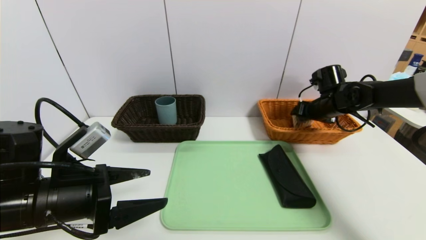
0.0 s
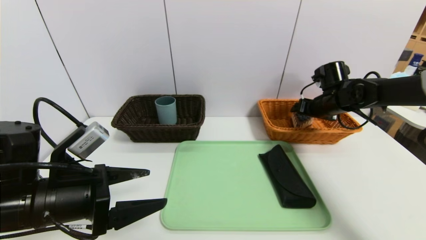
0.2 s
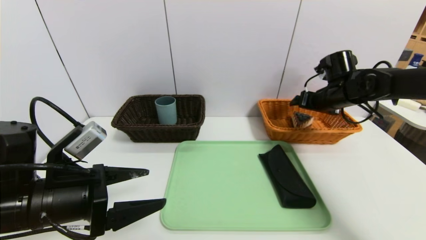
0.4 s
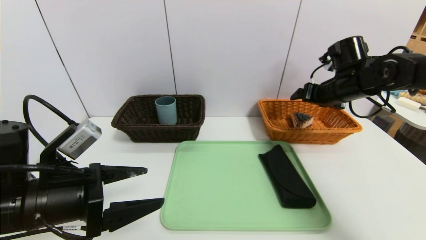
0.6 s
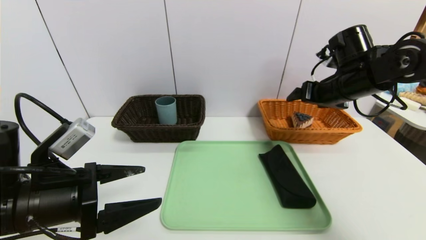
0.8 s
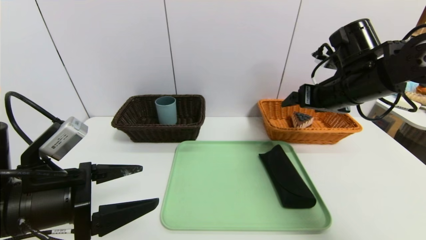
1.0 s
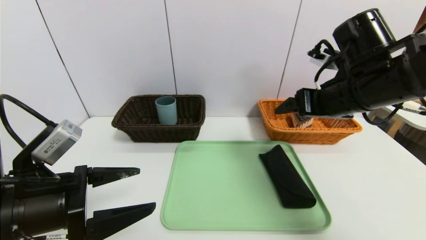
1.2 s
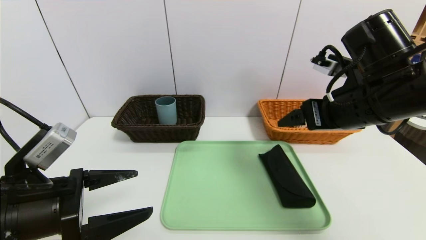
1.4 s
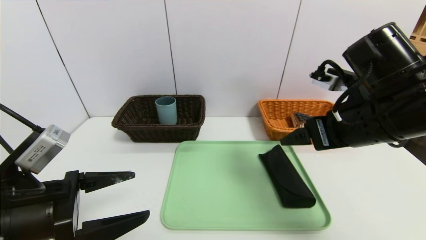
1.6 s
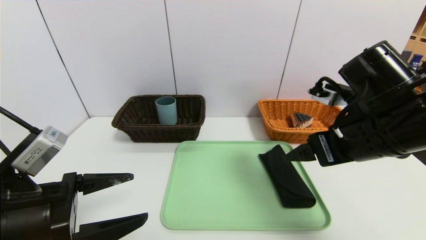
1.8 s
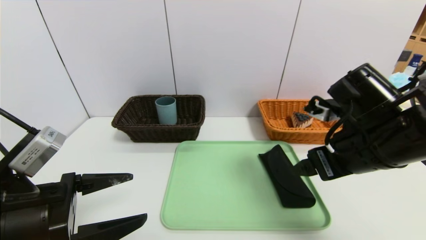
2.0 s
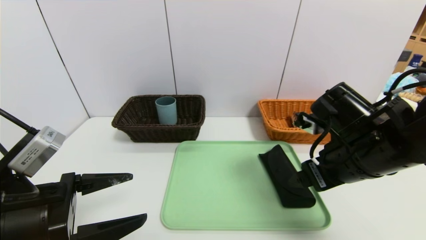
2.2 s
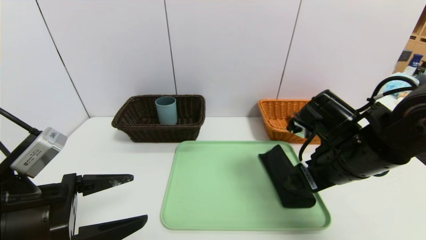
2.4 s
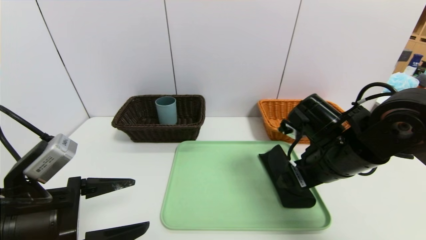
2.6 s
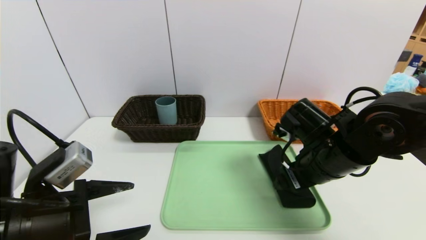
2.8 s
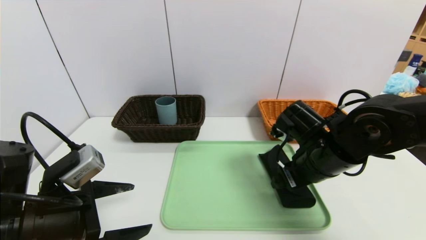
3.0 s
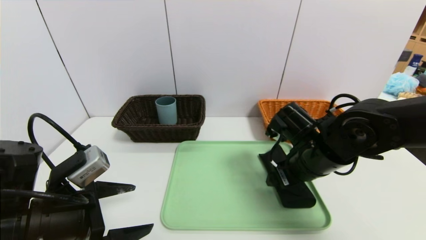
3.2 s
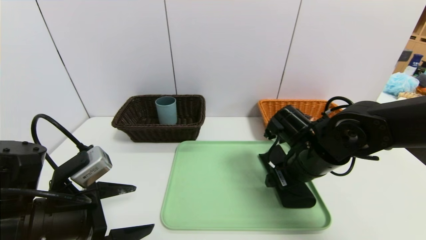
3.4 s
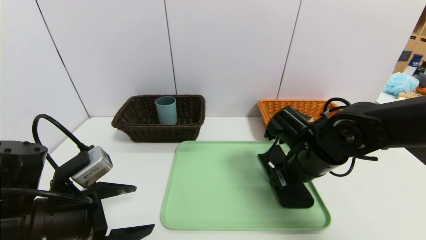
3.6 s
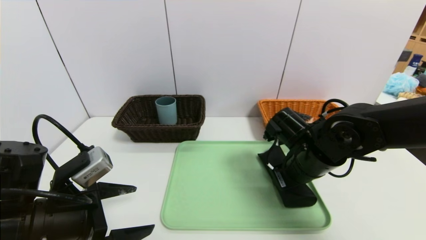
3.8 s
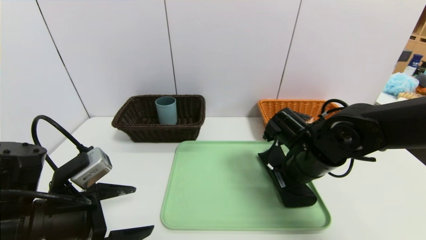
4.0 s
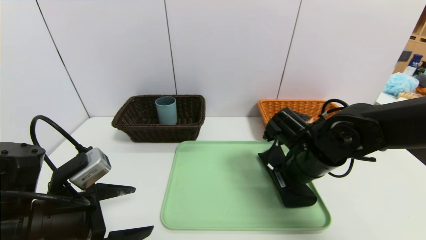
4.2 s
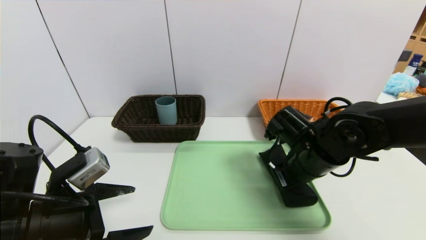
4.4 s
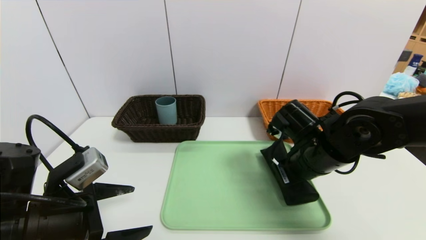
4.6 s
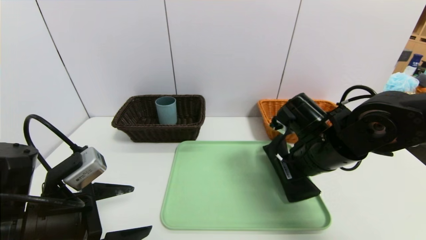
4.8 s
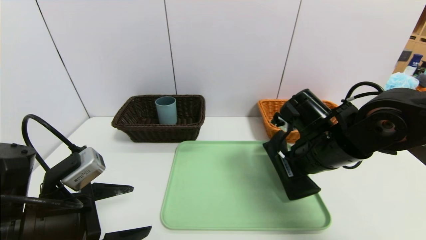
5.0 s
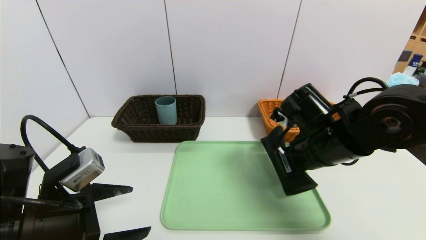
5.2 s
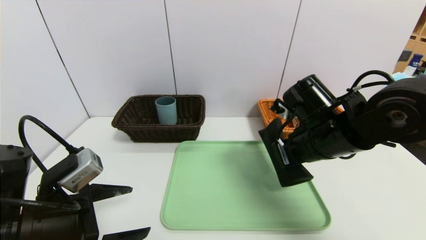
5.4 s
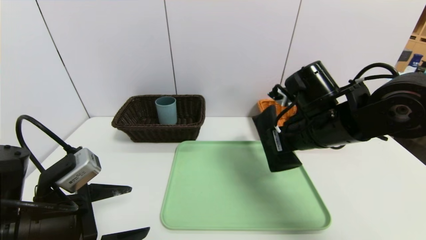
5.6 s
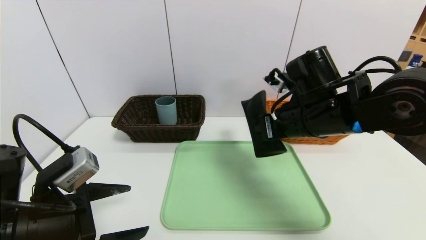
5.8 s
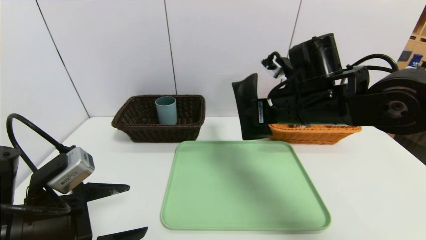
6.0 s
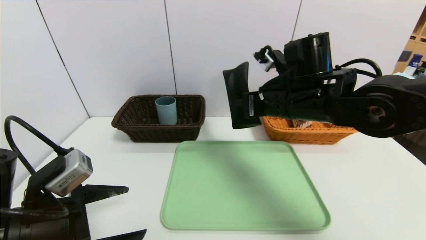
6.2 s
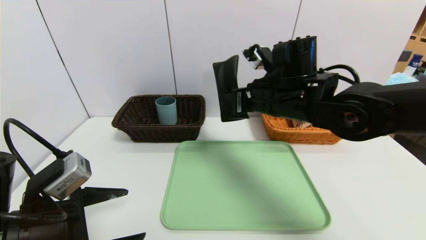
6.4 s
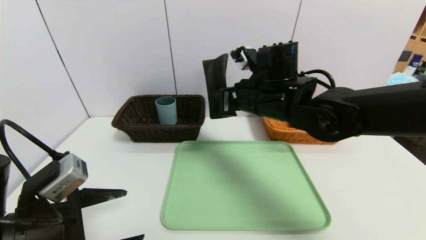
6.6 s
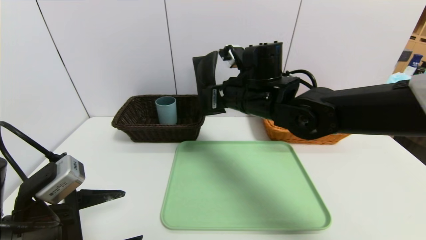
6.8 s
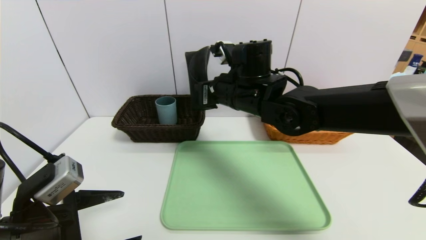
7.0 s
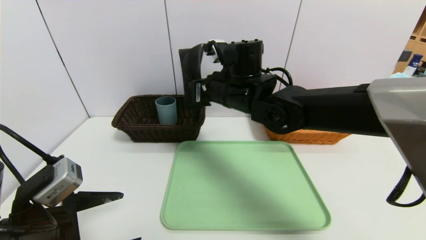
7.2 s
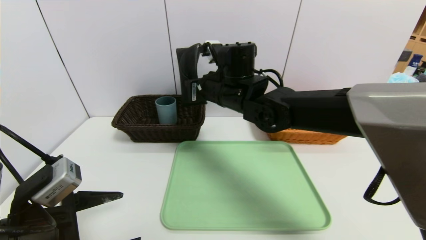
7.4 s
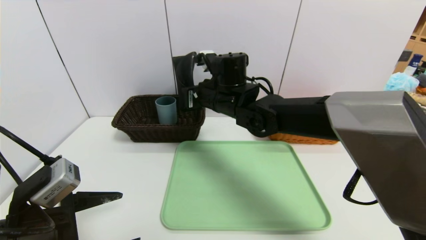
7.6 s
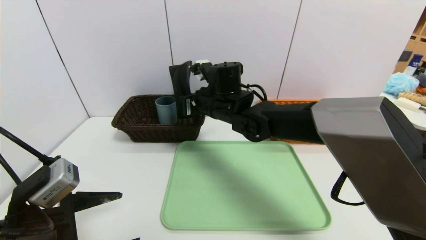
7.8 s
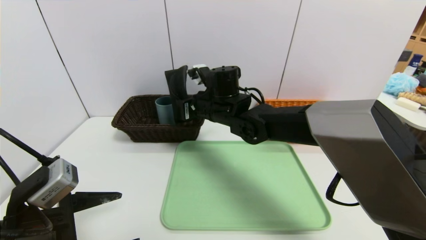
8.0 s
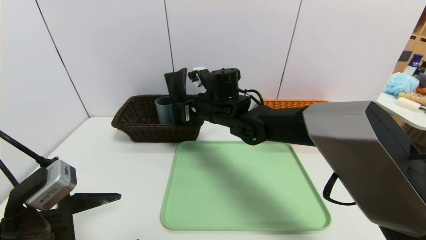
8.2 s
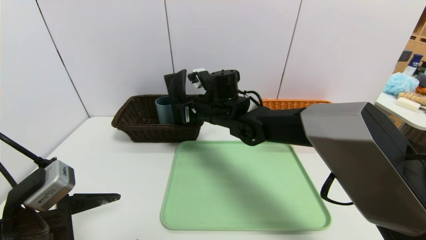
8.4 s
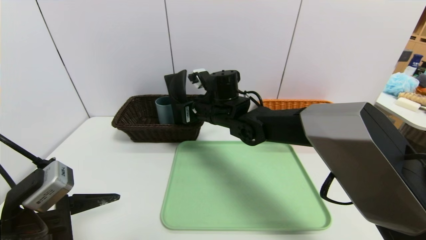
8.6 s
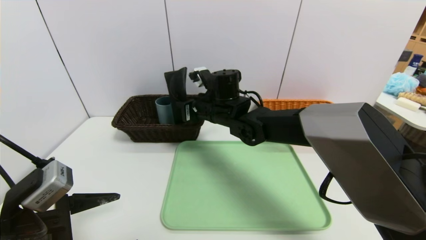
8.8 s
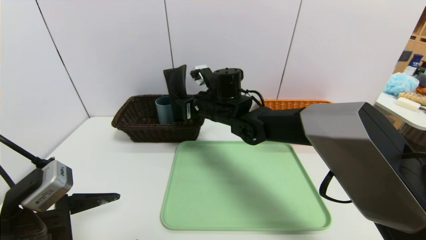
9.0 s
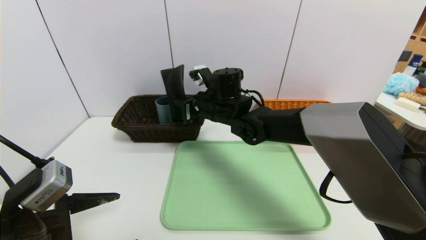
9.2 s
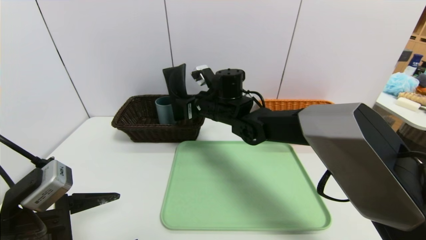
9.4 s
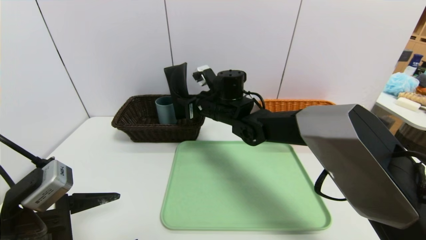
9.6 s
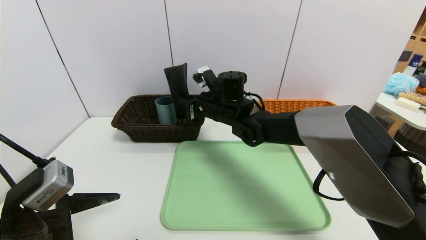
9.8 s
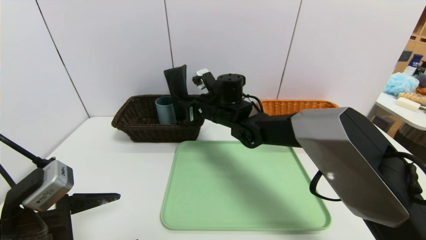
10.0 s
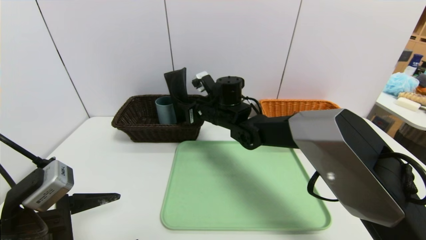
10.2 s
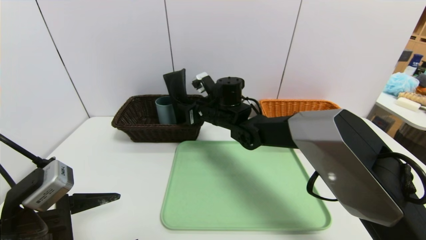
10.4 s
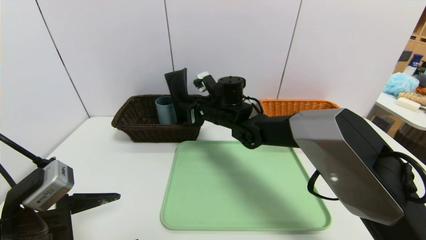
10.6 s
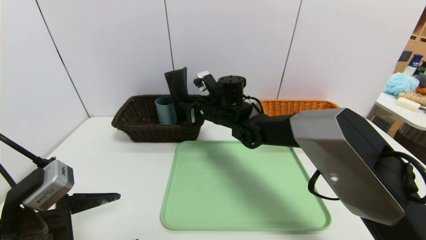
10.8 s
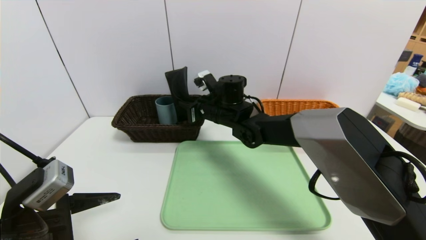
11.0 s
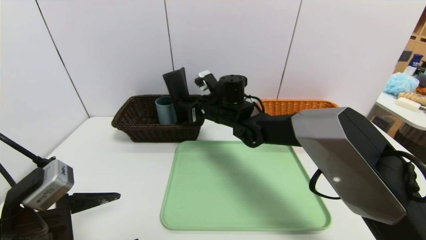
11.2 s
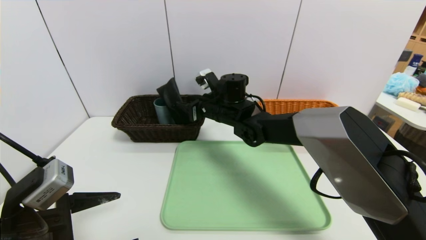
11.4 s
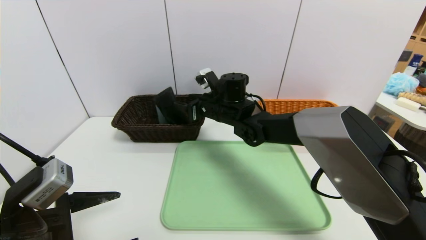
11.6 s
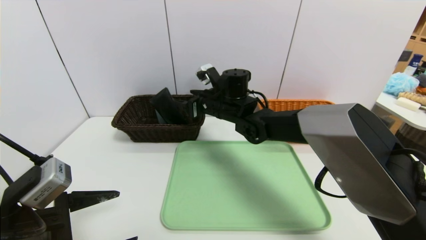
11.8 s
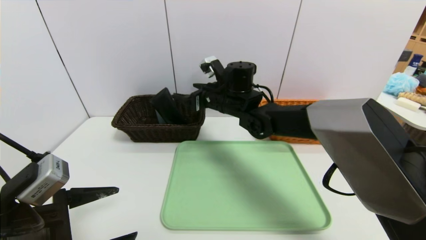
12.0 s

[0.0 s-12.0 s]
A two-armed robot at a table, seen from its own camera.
Task of the whole recording: place the food in the right basket with the right gripper, and place the non food items in the left basket with the left gripper.
0.0 to 1.6 s: The right gripper travels backward, upward and to the left by approximately 25 cm.
1.6 to 3.0 s: The right gripper goes roughly 10 cm downward.
3.0 to 4.4 s: The right gripper closes its fingers.
4.4 to 6.0 s: The right gripper is displaced upward by about 10 cm.
6.0 to 7.6 s: The right gripper travels to the left and forward by about 15 cm.
7.6 to 9.0 s: The grippers stay close to where they were, moving slightly.
9.0 to 10.4 s: The grippers make only small movements.
10.4 to 12.0 s: The right gripper opens its fingers.

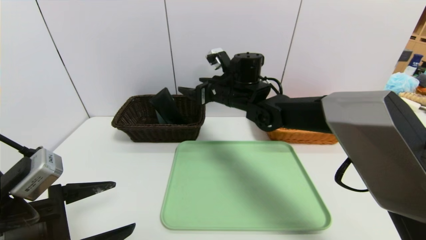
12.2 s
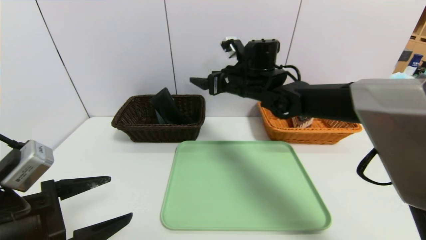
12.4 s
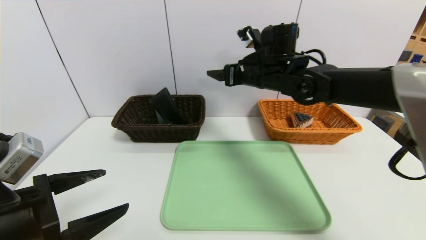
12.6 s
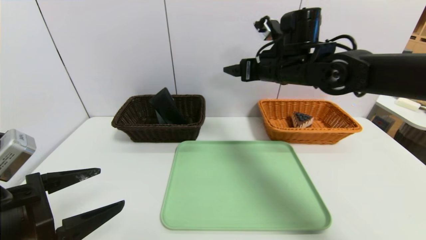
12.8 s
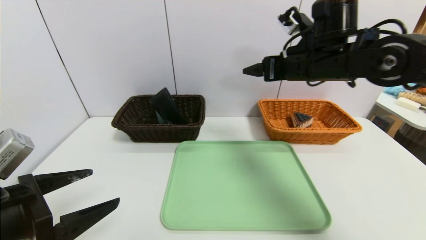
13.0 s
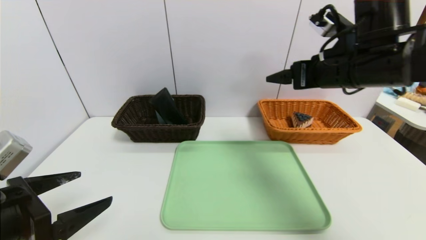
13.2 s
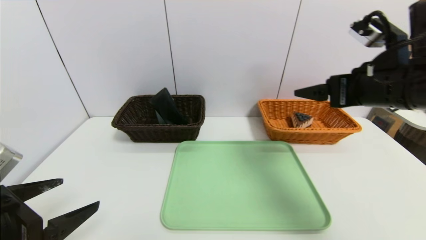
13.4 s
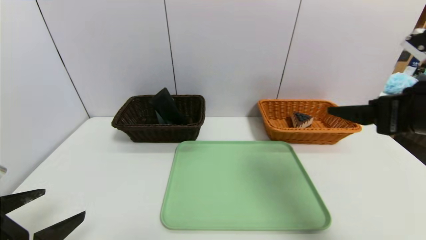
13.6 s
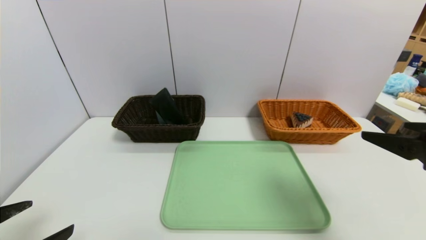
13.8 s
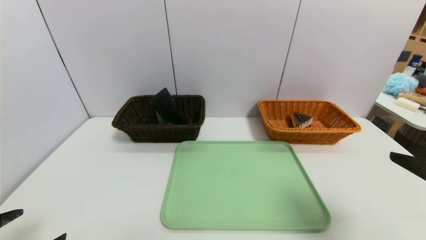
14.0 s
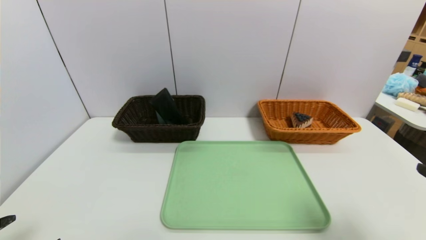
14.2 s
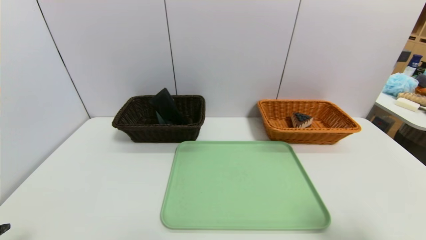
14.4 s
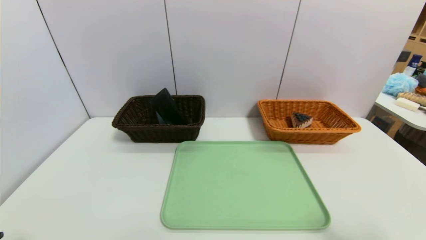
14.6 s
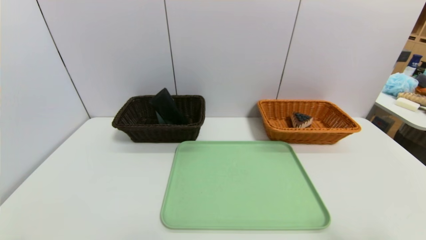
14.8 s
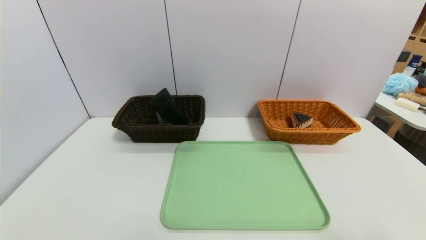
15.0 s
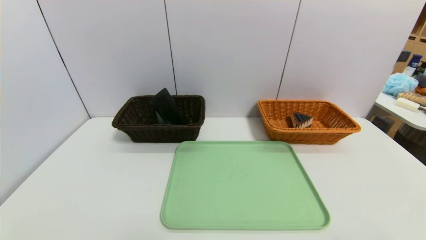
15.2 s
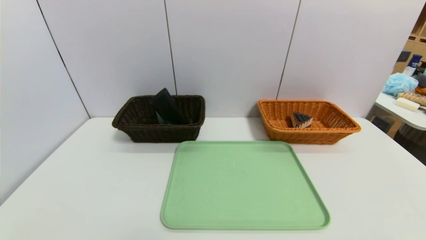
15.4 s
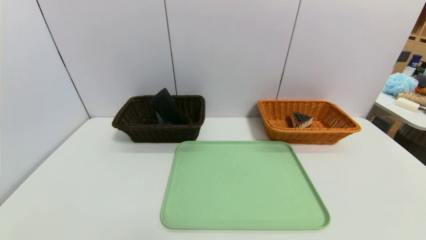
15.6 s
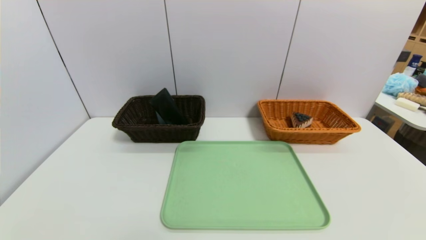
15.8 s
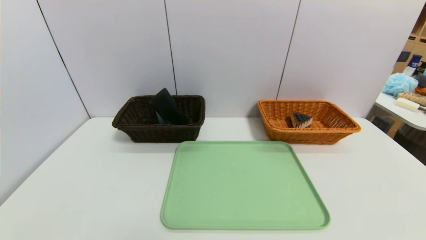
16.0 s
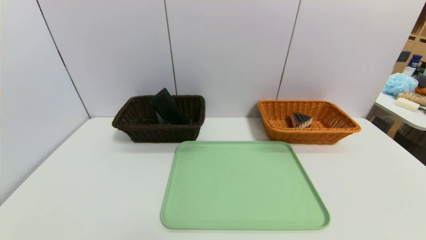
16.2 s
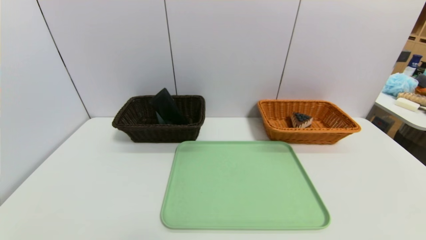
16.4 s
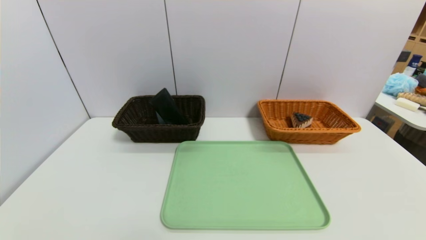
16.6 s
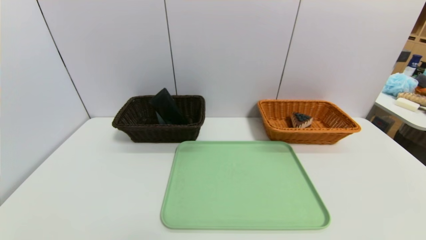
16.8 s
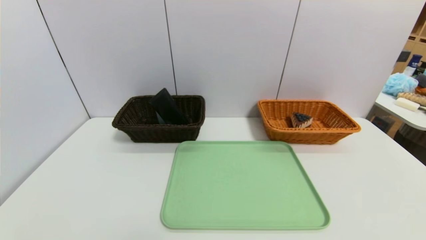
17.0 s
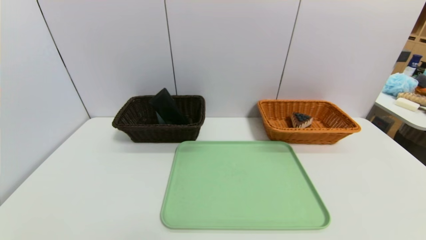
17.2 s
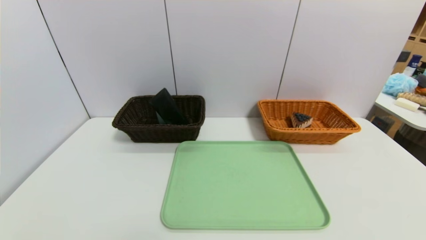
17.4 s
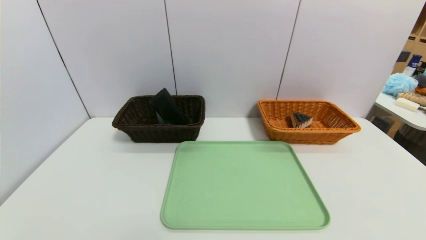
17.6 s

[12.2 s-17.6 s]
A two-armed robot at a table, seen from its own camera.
Task of the whole recording: place the food in the right basket with the right gripper, and place the non food items in the left basket with the left gripper.
12.2 to 13.6 s: The left gripper changes place by some 5 cm. Meanwhile the right gripper shifts about 35 cm backward and to the right.
13.6 to 15.0 s: The left gripper shifts some 10 cm backward and downward. The right gripper travels backward, downward and to the right by approximately 20 cm.
